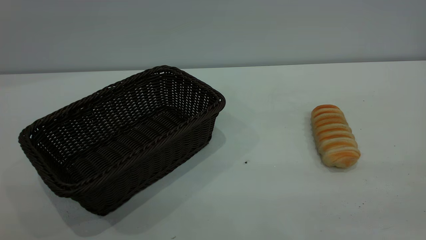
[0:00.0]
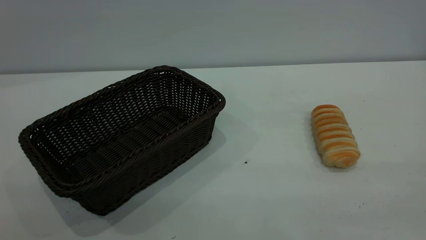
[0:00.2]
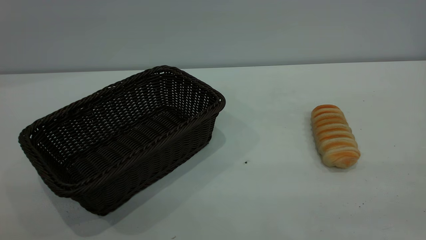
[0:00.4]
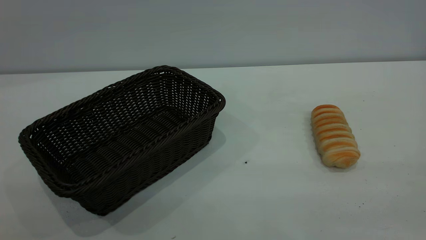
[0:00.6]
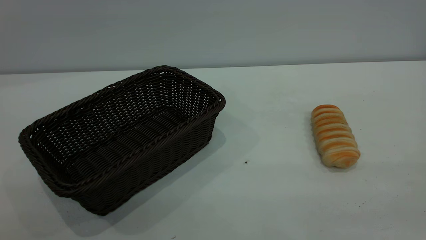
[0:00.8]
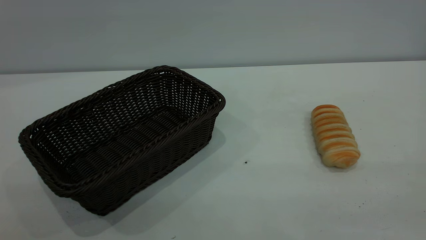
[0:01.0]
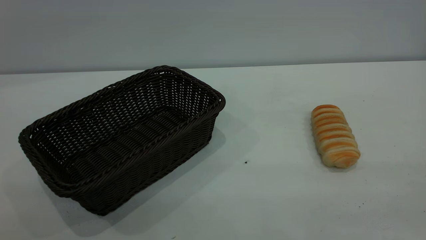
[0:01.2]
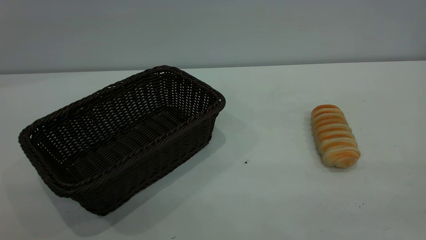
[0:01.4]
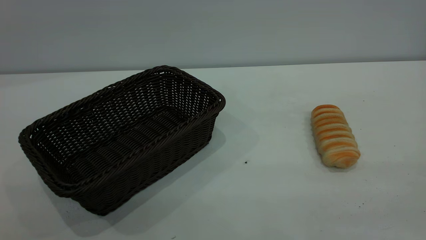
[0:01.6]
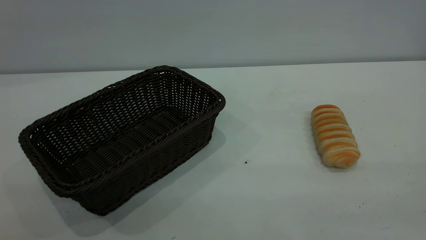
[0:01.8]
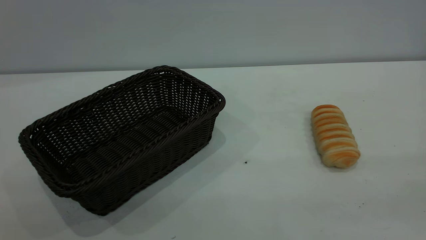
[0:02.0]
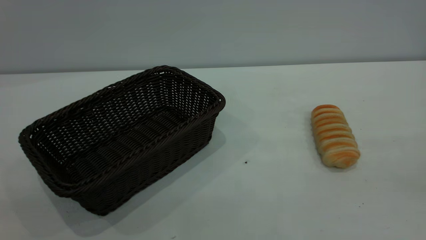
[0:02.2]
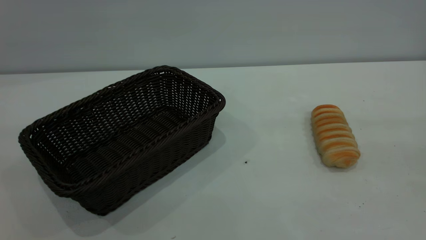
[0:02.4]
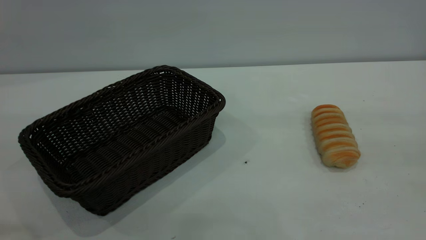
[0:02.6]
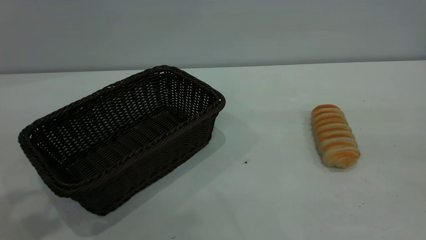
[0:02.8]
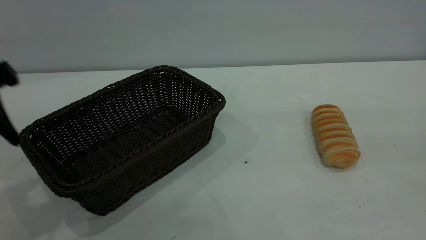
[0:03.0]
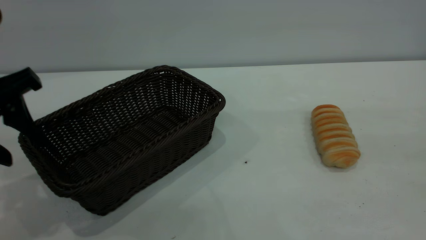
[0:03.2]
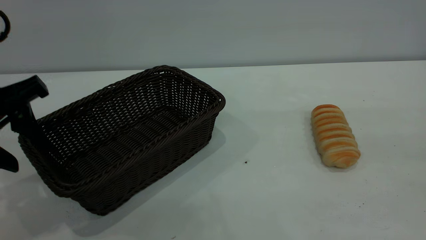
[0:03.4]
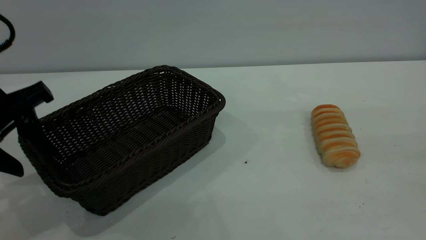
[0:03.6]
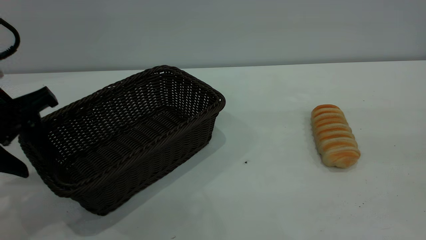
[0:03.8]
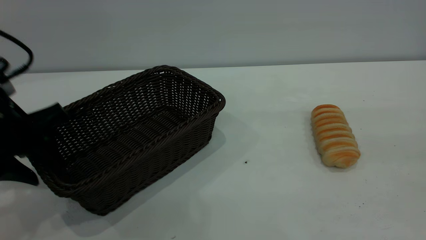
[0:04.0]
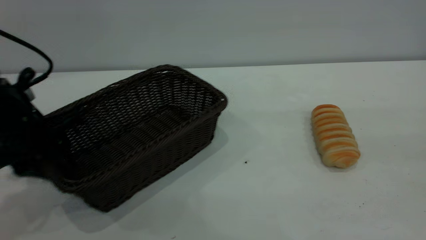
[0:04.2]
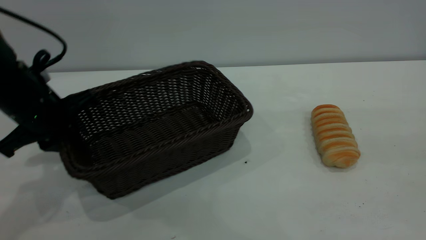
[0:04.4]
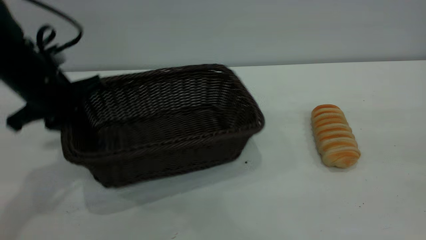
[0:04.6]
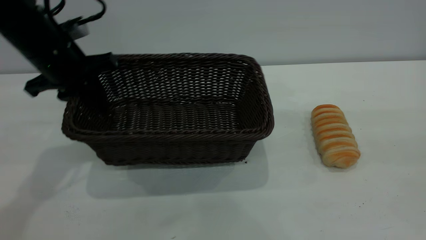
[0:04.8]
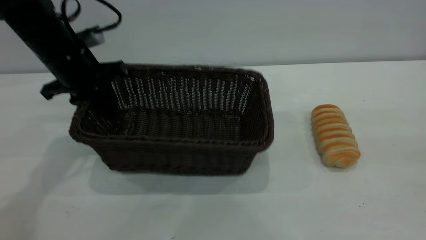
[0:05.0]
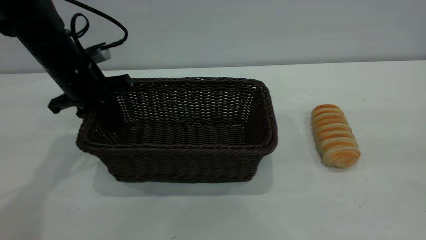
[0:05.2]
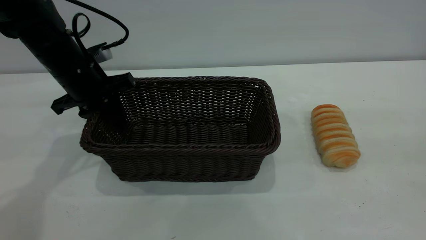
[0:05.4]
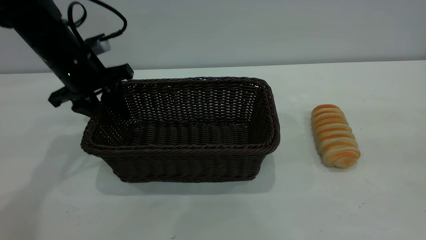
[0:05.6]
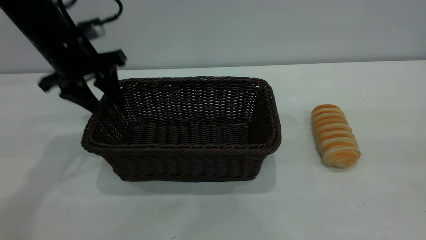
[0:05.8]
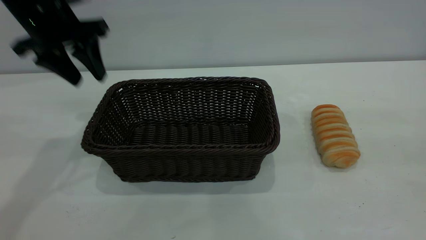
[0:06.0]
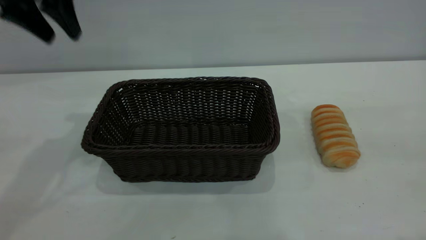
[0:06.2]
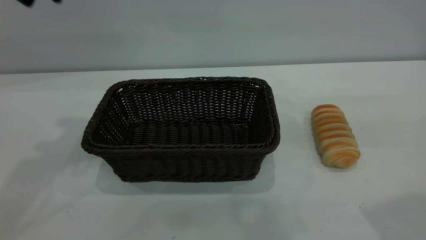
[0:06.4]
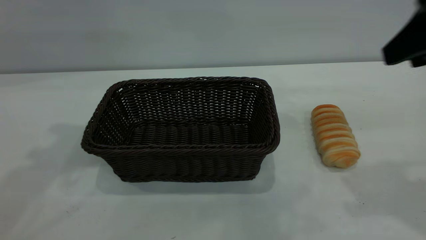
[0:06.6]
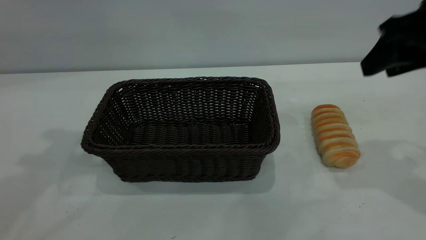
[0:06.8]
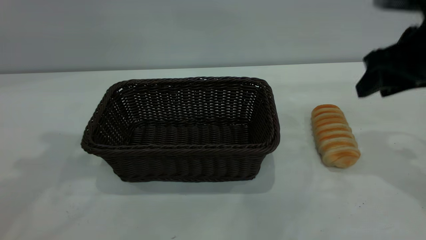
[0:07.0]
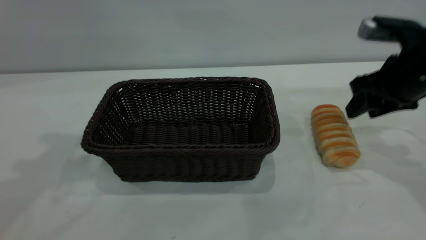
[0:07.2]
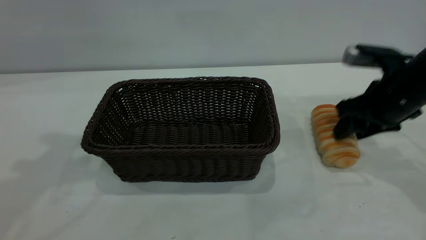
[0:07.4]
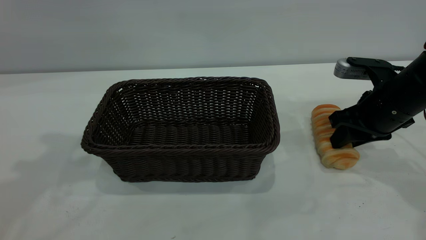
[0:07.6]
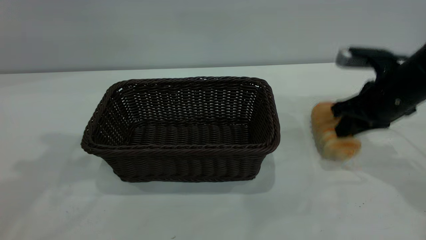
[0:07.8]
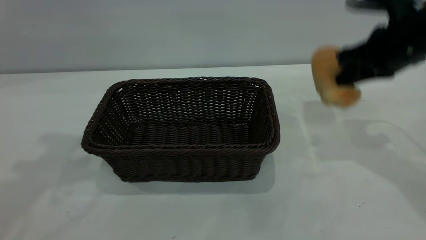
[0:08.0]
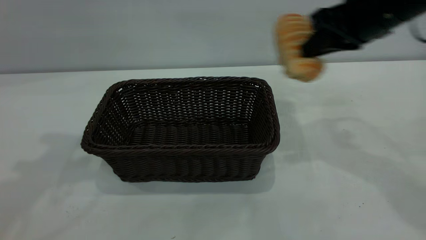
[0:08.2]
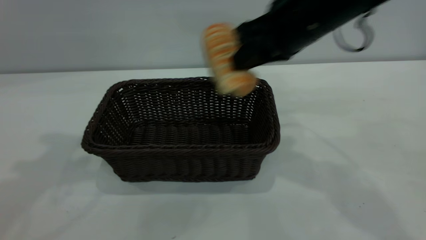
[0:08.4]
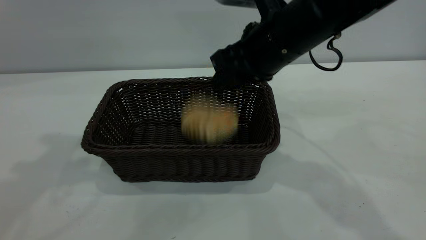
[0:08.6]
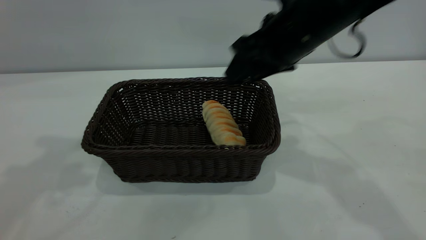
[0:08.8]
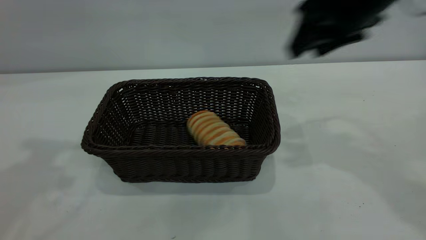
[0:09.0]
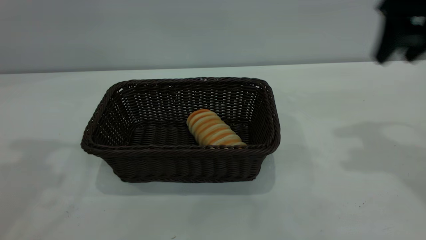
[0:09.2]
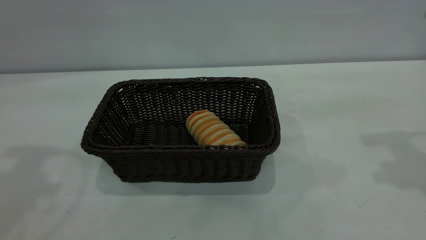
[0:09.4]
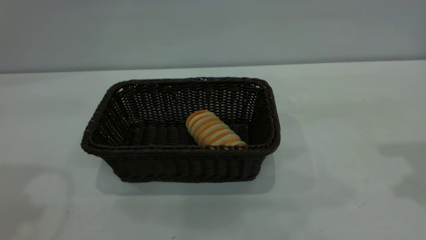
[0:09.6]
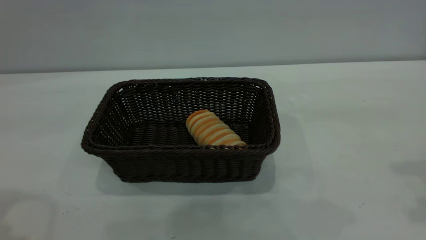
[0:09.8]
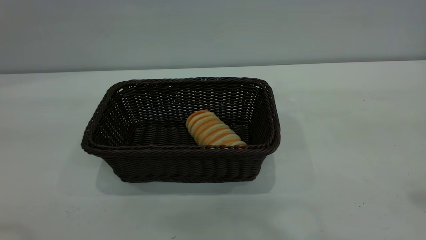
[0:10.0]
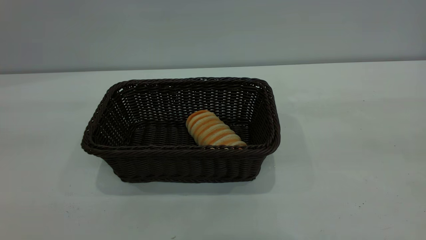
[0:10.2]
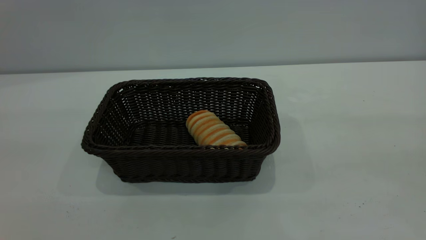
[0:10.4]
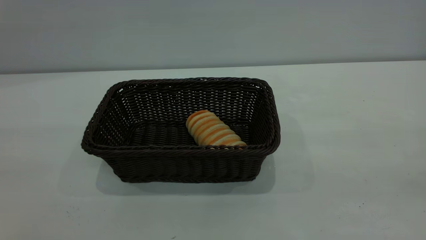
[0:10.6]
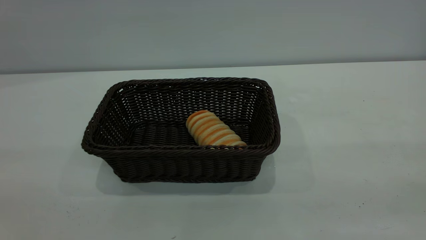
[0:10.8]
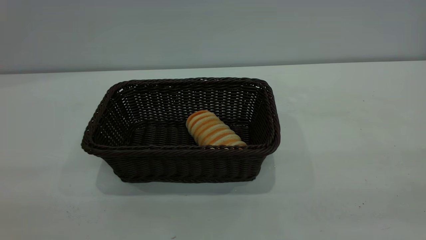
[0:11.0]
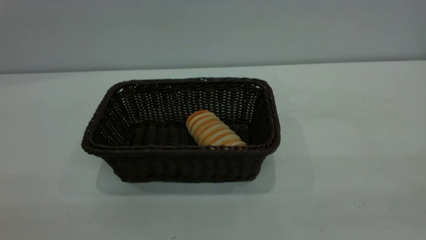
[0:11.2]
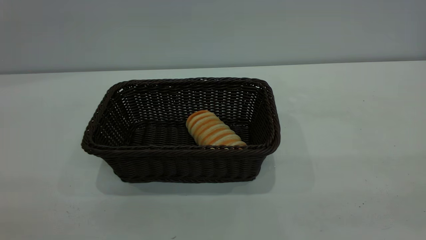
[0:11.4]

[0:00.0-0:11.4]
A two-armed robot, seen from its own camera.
Task of the whole recording: One hand grasps the black basket and places it in the middle of the table, while the other hand picks up the long bread and puts it into the black basket.
Step, 0:00.0 to 0:06.0: Move the basket to the center of view.
Step, 0:08.2 to 0:08.8: place the bread into the basket.
0:00.0 to 0:01.4: Both grippers stay about where they are.
0:02.8 to 0:04.2: The left gripper travels downward and forward by approximately 20 cm.
0:04.2 to 0:05.6: The left gripper goes roughly 10 cm forward, and closes and opens again.
0:05.6 to 0:07.2: The right gripper moves forward and downward, roughly 30 cm, while the left gripper moves upward, roughly 25 cm.
0:07.2 to 0:08.6: The right gripper moves to the left, roughly 20 cm, and closes and opens again.
0:08.6 to 0:10.0: The left gripper moves backward, some 15 cm, while the right gripper goes approximately 30 cm to the right, backward and upward, and opens its fingers.
